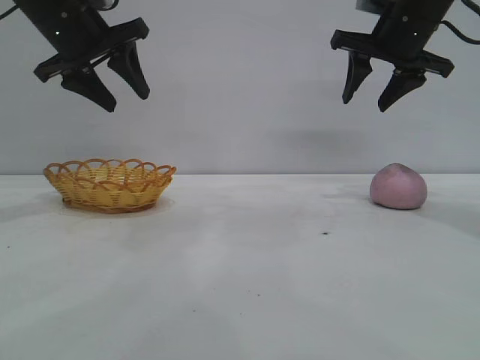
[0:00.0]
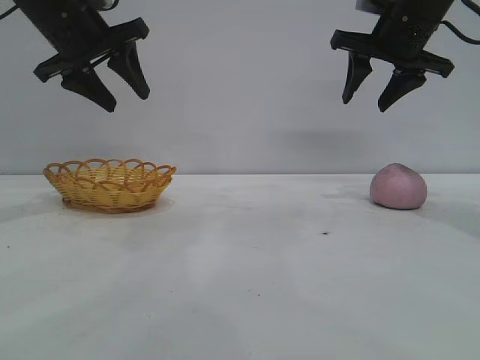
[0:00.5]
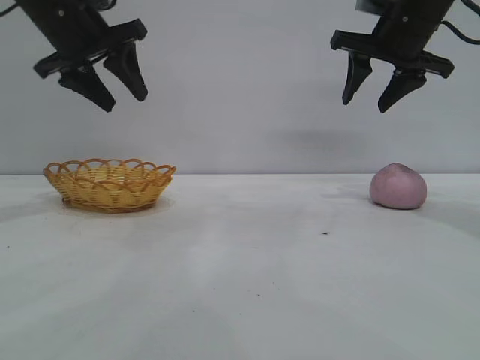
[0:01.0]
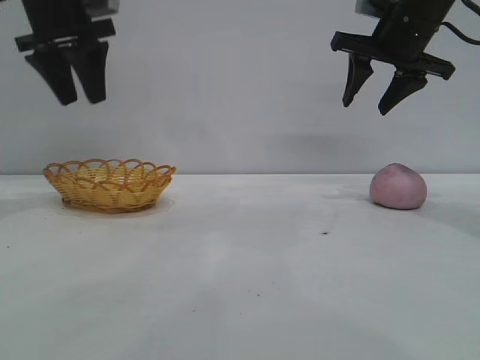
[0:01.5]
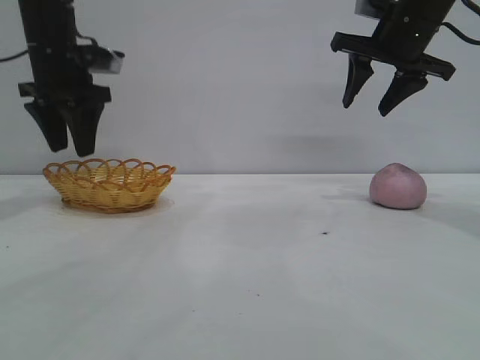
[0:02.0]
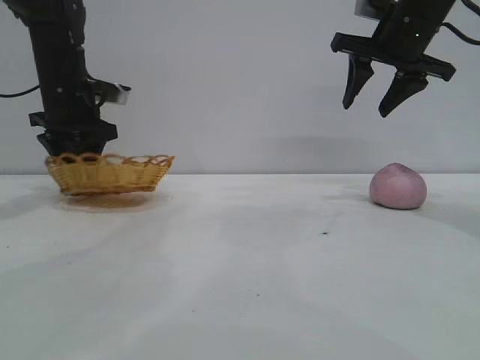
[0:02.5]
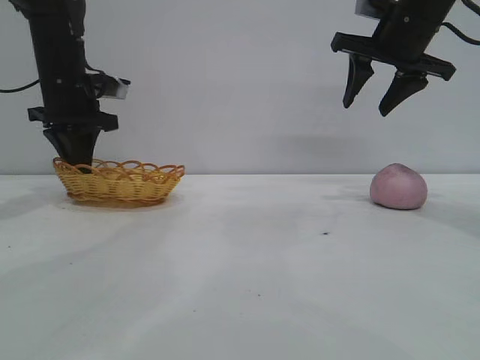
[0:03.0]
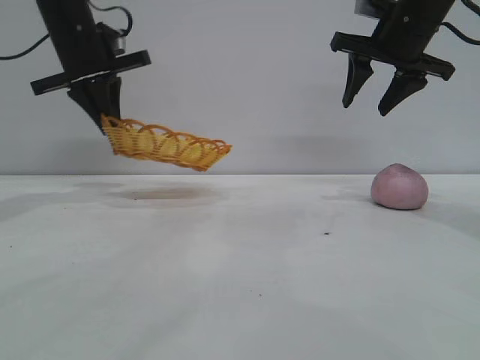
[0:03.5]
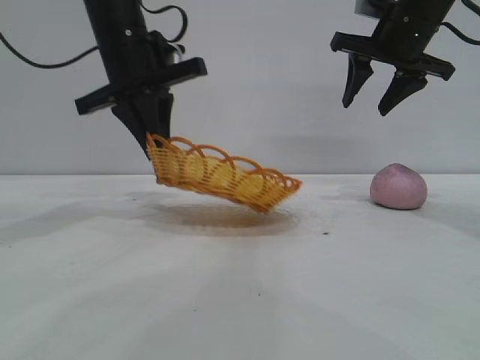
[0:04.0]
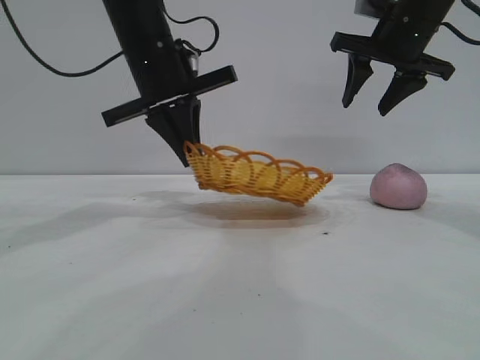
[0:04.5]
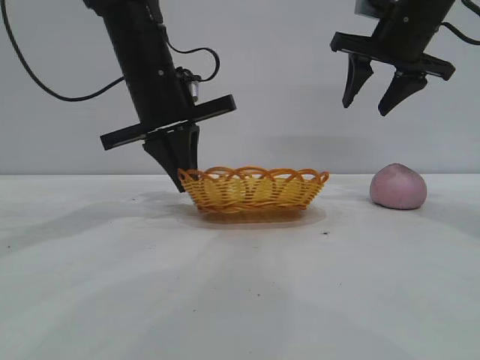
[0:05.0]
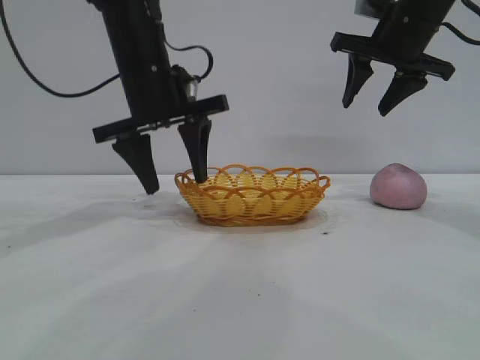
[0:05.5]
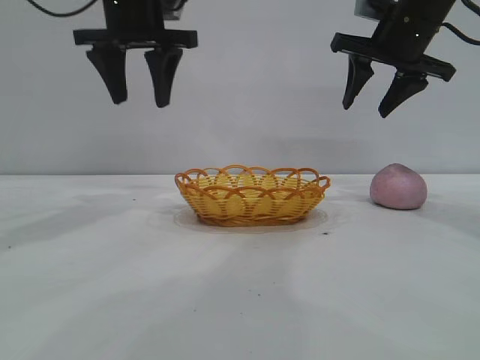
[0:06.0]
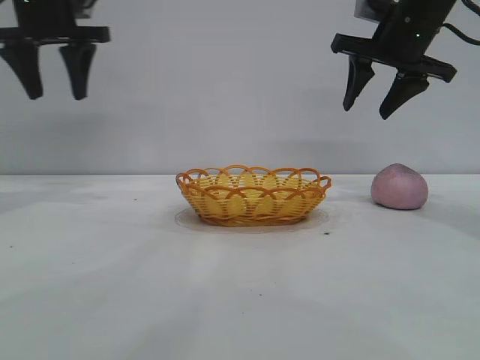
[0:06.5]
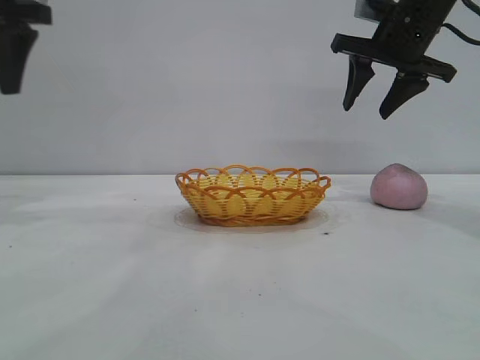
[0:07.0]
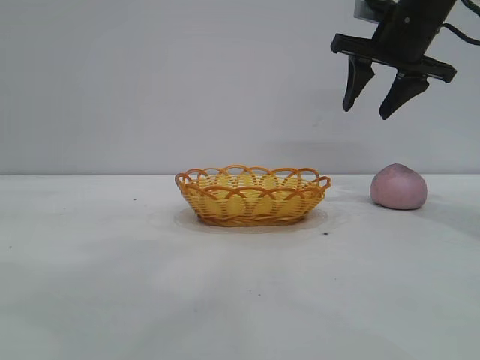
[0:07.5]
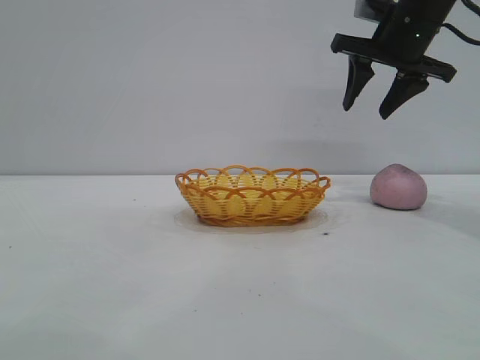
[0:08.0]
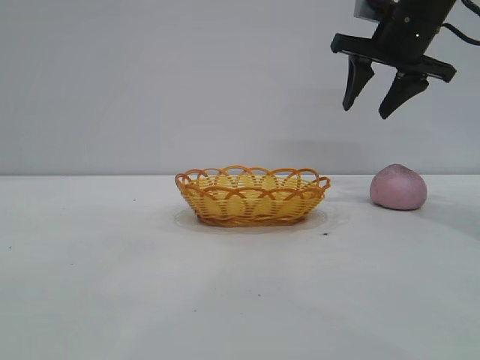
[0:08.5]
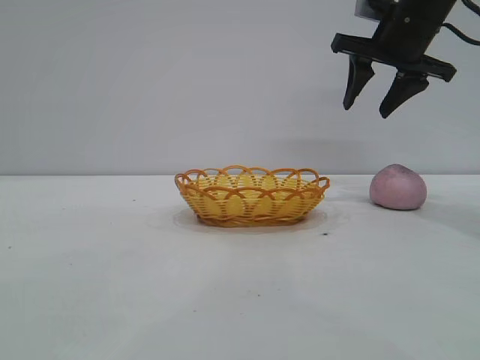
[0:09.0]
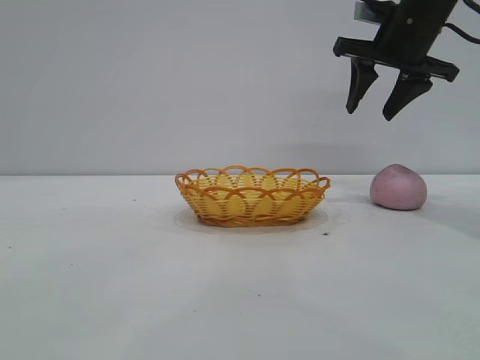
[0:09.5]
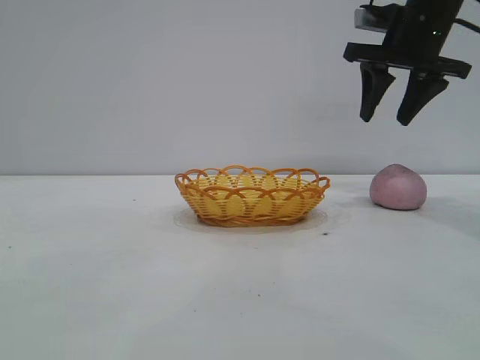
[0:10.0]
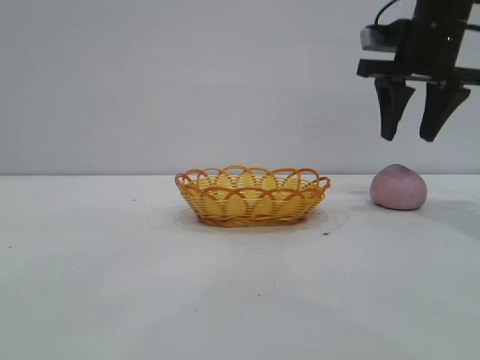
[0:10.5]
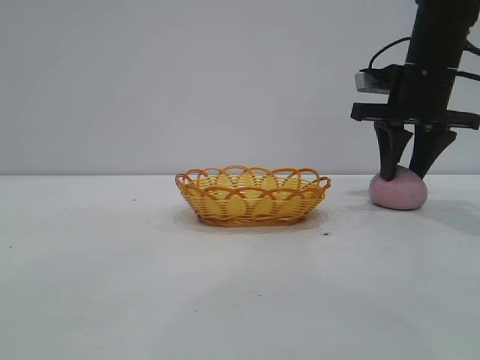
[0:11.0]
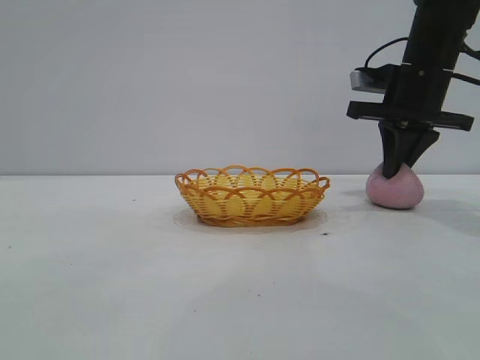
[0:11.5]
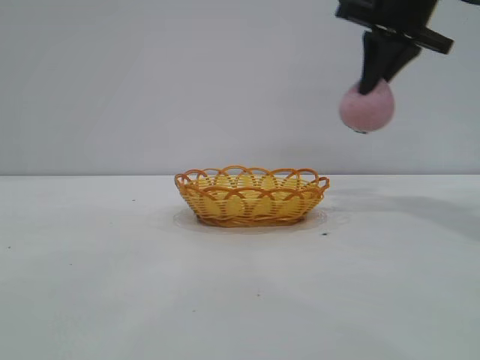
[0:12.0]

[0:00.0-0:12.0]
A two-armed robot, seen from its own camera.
Task of the whole recording: pick up the peach and put it into the basket.
Step, 0:00.0 to 0:05.5: Move the basket to the center of view.
Step, 0:06.0 to 0:11.5: Pick up the peach.

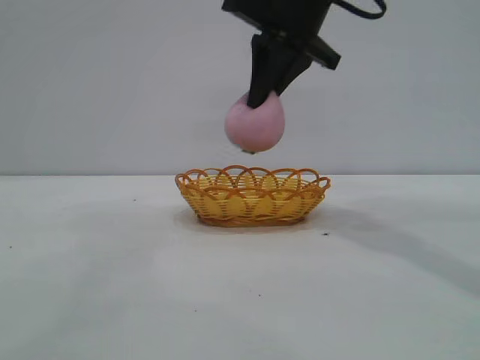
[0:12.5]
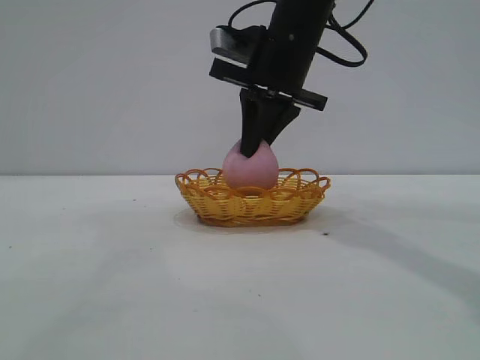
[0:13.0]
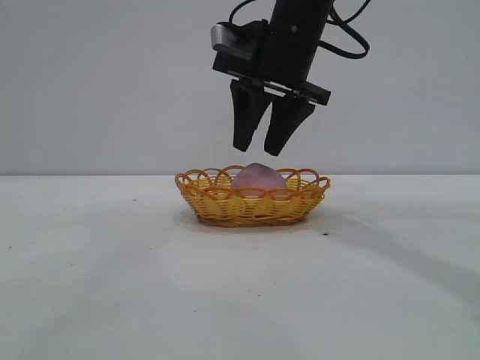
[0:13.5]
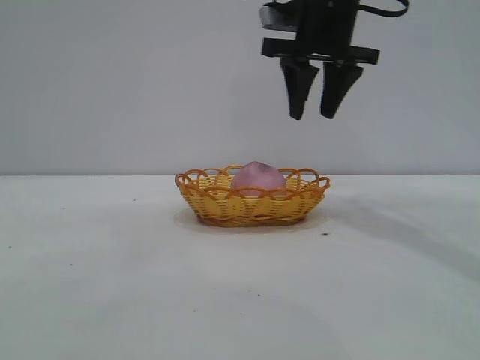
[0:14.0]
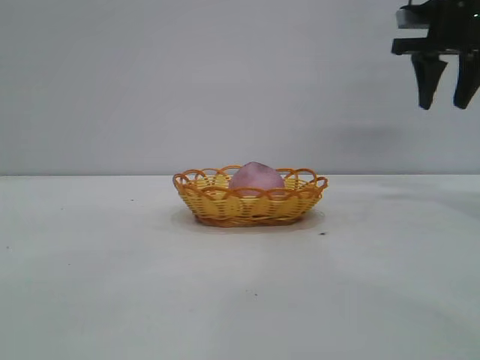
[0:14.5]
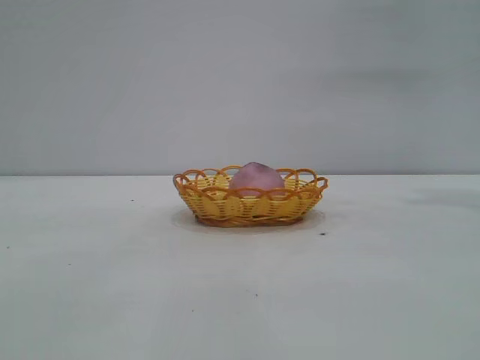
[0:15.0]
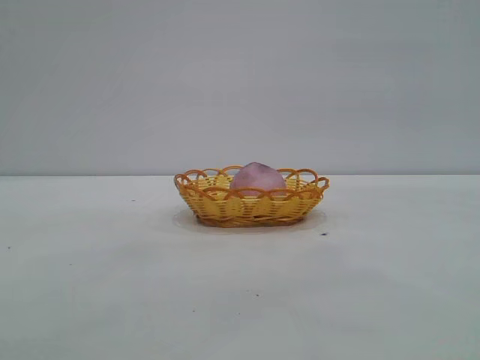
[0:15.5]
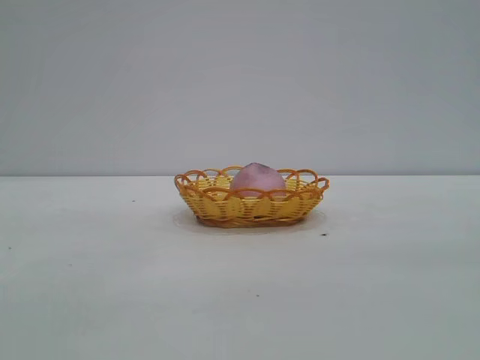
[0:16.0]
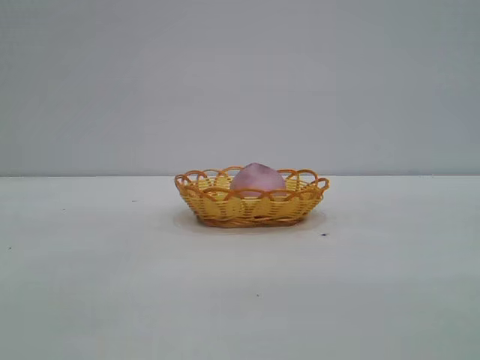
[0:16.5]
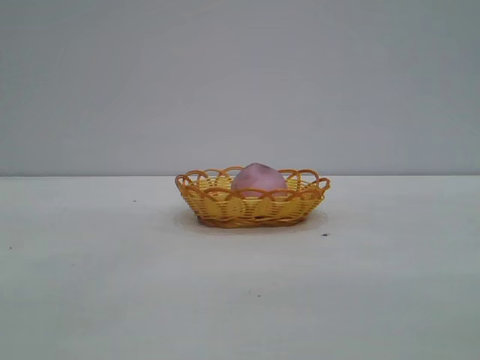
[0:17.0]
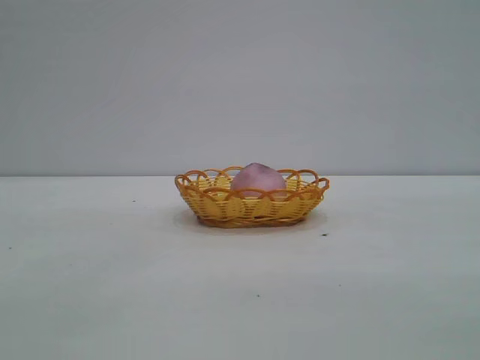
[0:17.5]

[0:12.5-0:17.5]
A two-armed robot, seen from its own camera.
Task of the whole recording: pick up the peach and put it into the basket.
Step, 0:12.5 to 0:14.0: place the peach into the basket.
